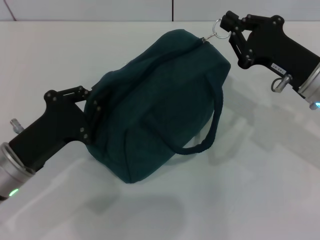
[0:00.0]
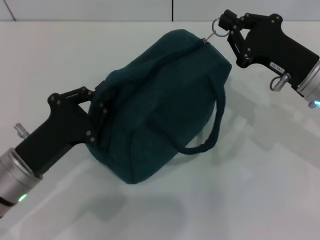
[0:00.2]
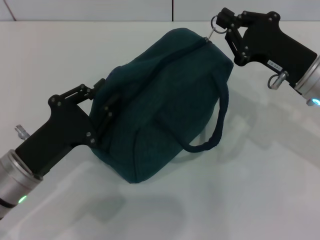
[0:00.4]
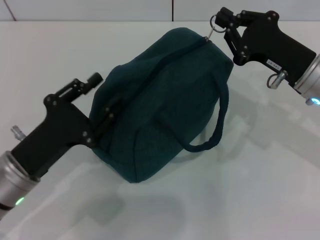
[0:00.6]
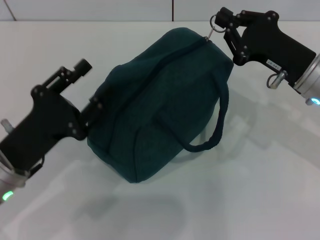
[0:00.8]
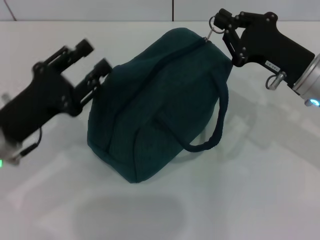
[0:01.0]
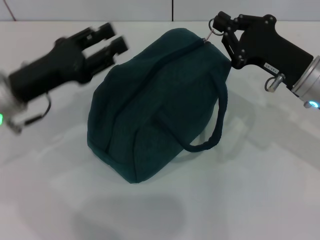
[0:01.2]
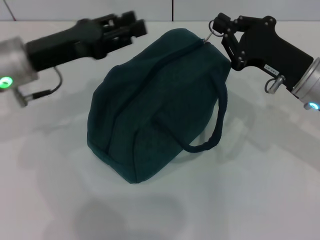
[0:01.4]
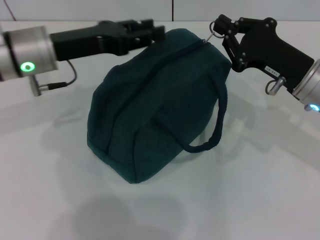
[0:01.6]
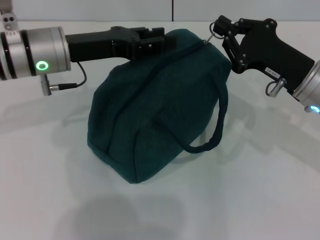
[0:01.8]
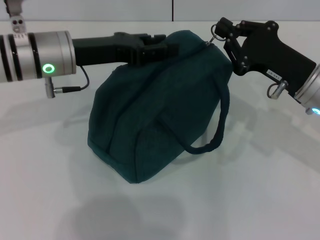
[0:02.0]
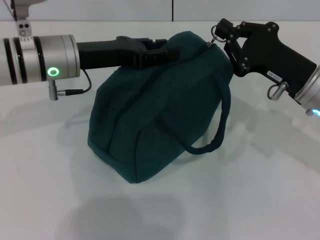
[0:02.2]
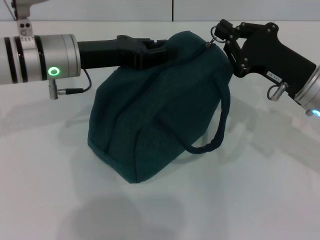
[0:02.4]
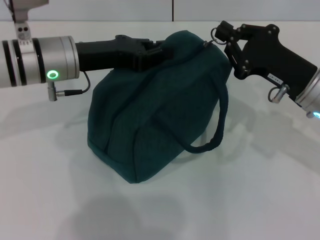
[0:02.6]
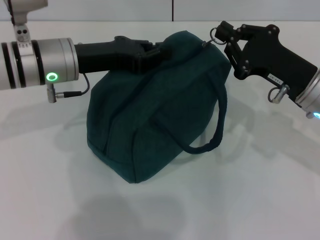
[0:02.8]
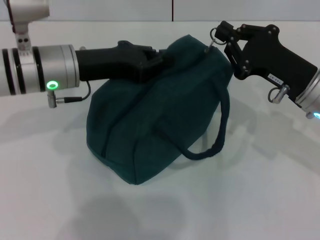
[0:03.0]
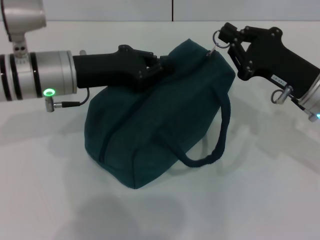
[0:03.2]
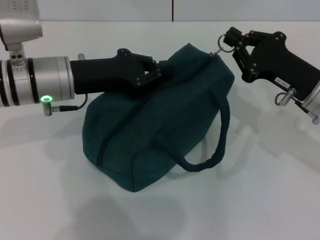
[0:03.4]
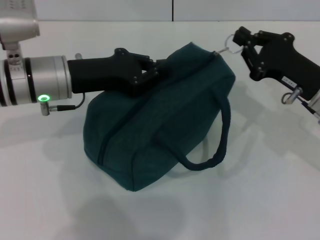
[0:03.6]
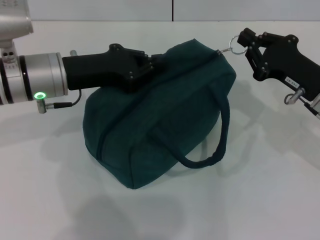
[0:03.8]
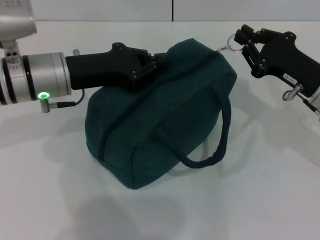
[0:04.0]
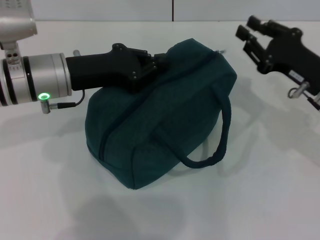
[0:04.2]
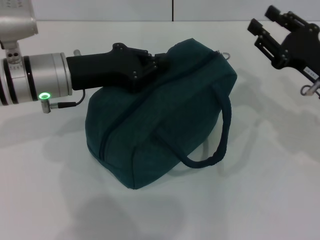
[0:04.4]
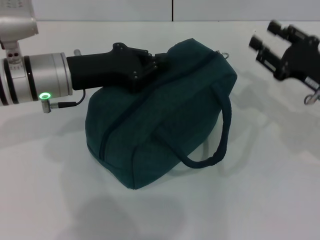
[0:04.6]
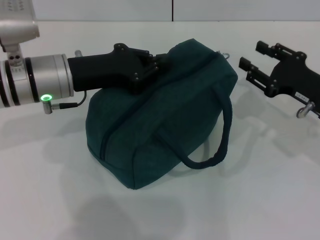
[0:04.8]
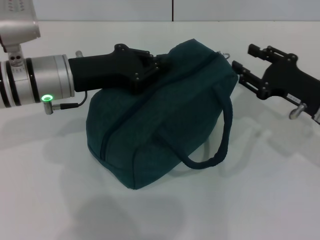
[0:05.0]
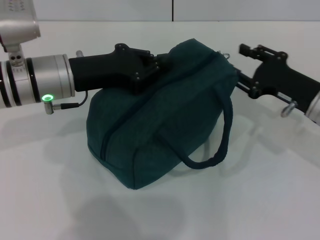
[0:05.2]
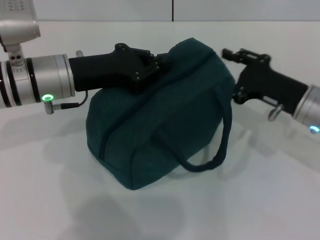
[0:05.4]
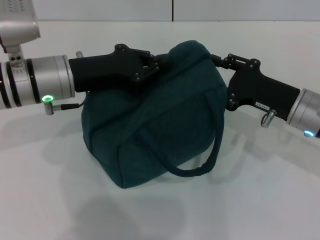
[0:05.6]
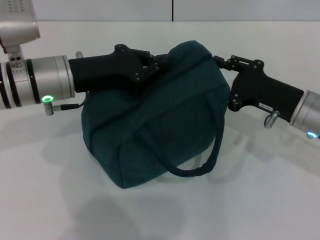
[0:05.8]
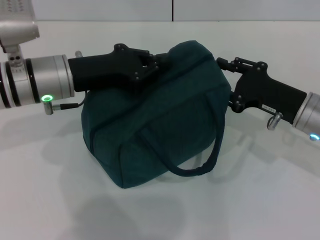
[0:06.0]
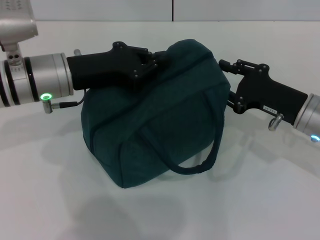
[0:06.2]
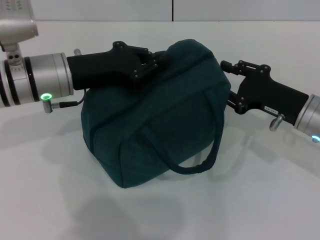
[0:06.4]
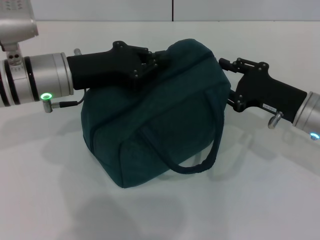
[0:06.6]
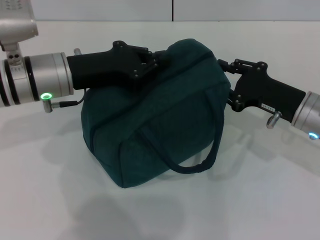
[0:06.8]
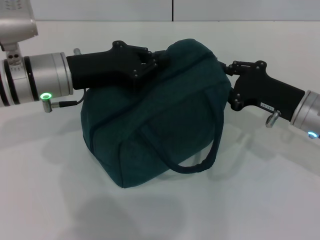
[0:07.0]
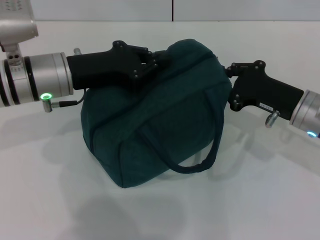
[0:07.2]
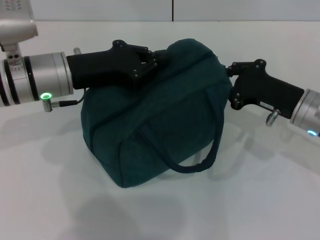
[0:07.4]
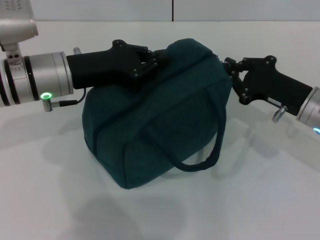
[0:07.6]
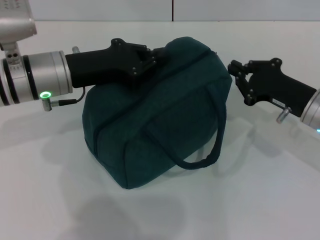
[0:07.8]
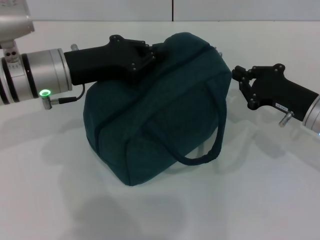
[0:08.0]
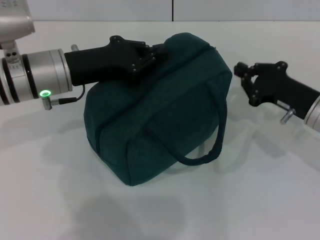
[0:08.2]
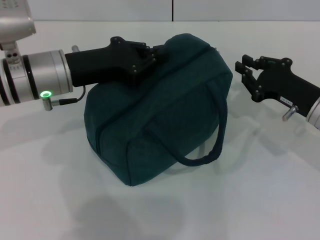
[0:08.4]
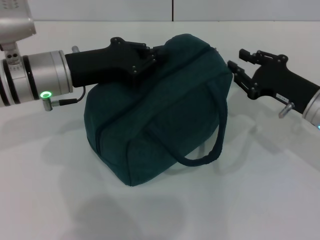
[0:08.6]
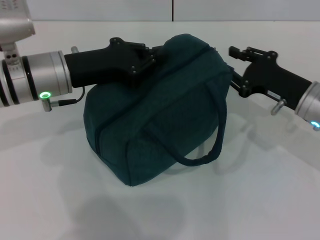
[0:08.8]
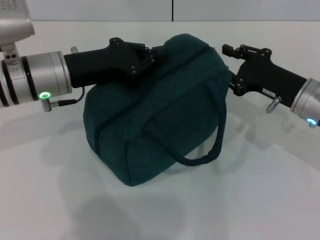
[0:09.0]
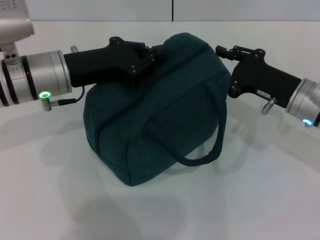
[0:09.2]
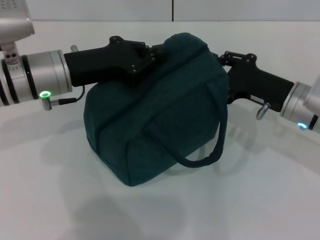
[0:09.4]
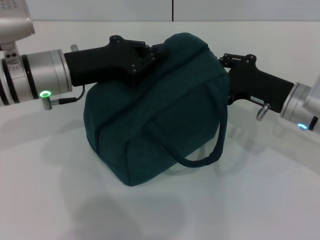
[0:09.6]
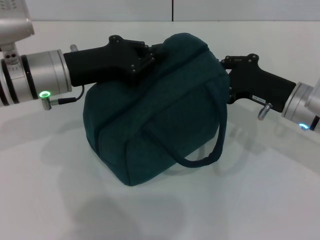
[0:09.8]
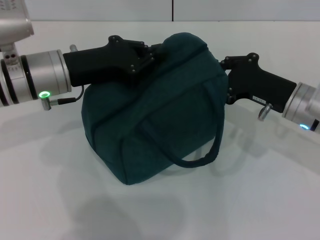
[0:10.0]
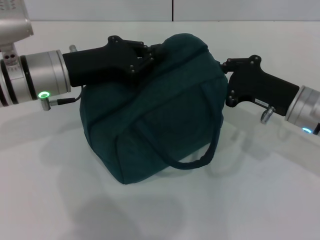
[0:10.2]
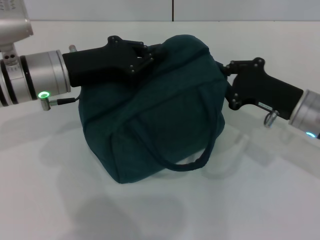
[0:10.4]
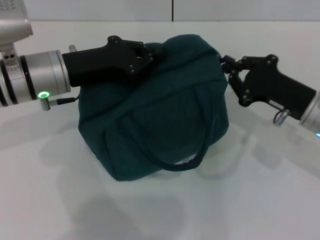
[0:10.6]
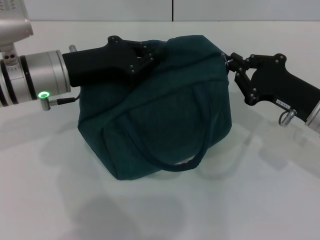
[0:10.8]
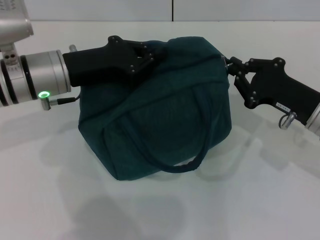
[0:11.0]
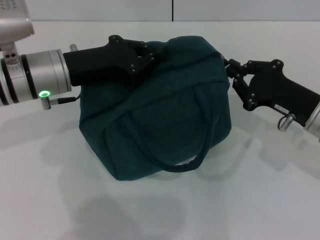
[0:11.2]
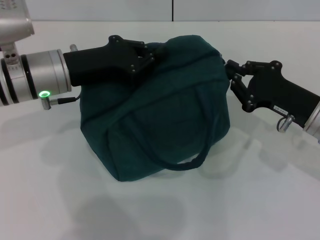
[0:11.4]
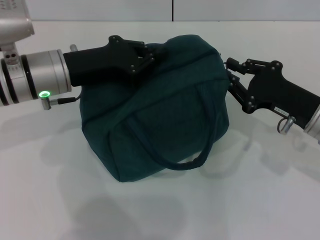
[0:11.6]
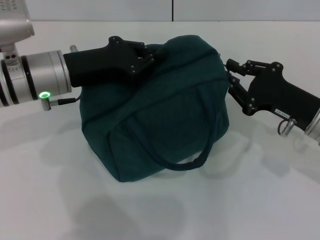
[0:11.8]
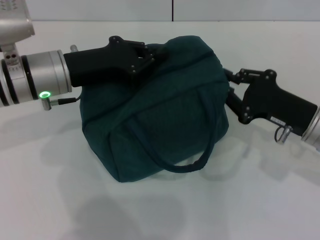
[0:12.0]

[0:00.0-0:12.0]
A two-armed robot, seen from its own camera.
0:00.0 to 0:01.6: The left gripper travels forward and upward by some 15 cm, and opens.
0:01.6 to 0:03.0: The left gripper closes.
0:03.0 to 0:04.4: The right gripper opens.
0:04.4 to 0:06.0: There are only small adjustments of the grippers.
0:06.0 to 0:07.6: The right gripper closes up.
0:07.6 to 0:09.0: The right gripper opens.
0:09.0 to 0:10.4: The right gripper closes its fingers.
0:10.4 to 0:12.0: The grippers stay close to where they were, moving slightly.

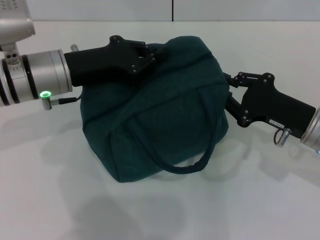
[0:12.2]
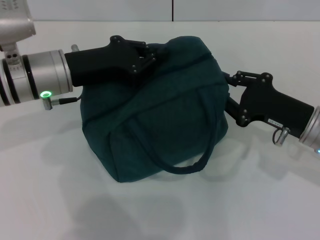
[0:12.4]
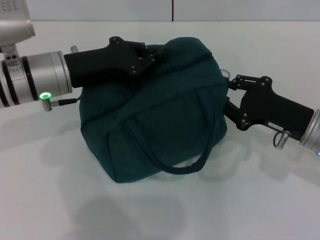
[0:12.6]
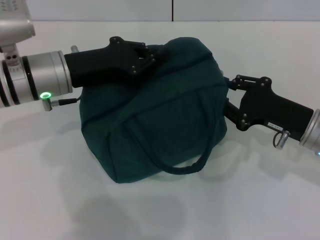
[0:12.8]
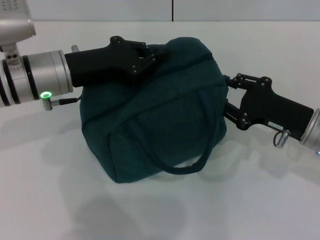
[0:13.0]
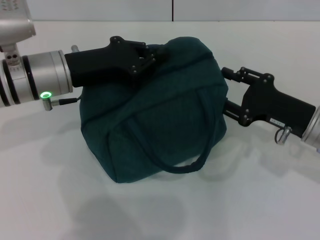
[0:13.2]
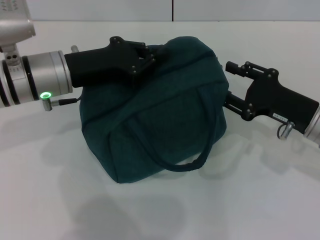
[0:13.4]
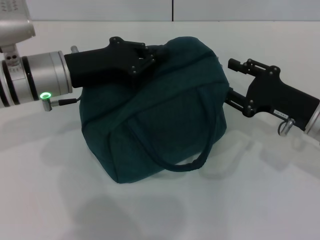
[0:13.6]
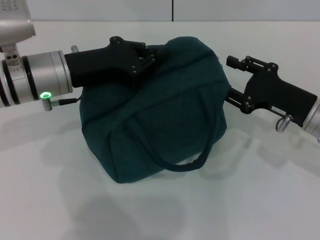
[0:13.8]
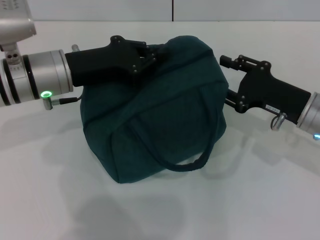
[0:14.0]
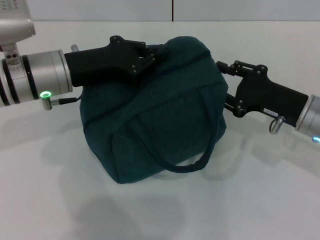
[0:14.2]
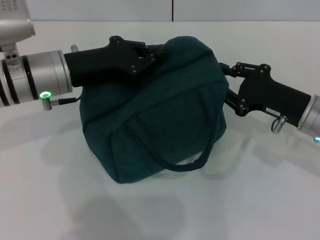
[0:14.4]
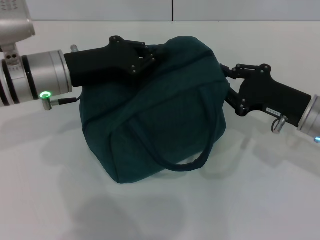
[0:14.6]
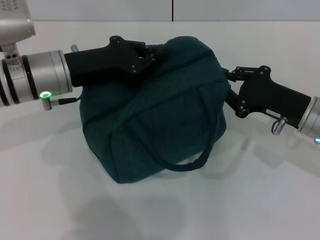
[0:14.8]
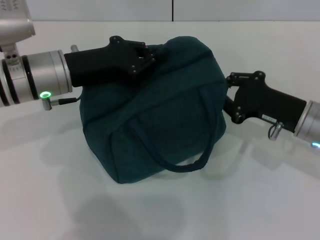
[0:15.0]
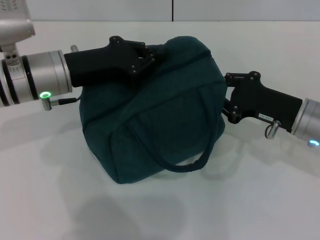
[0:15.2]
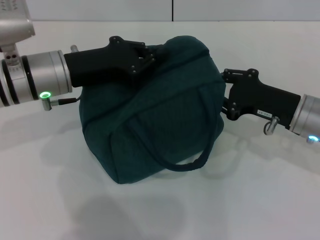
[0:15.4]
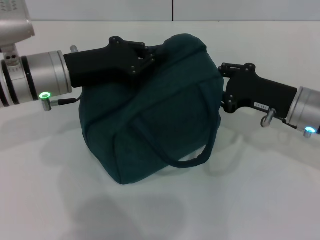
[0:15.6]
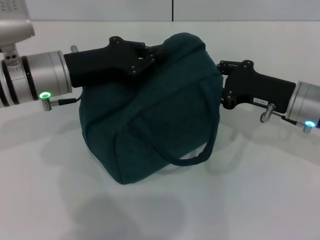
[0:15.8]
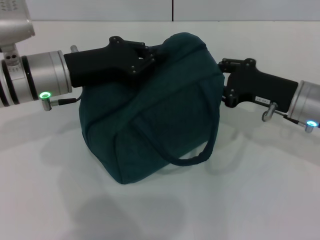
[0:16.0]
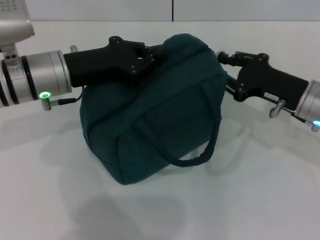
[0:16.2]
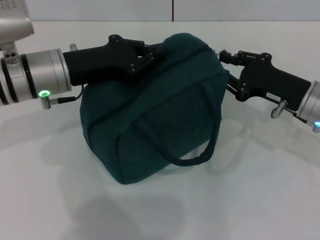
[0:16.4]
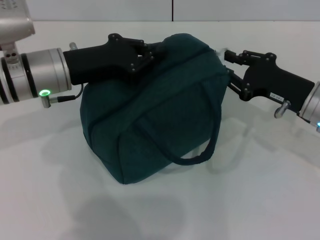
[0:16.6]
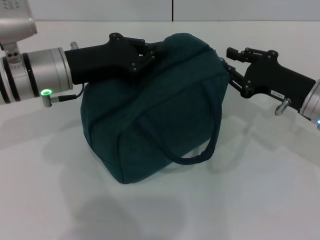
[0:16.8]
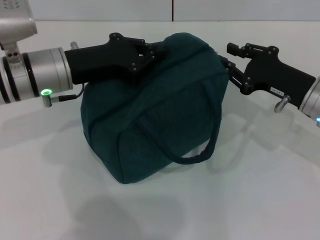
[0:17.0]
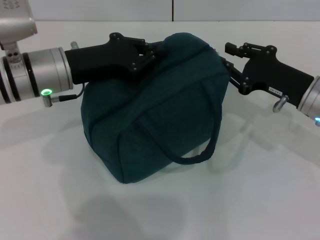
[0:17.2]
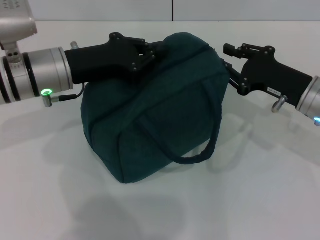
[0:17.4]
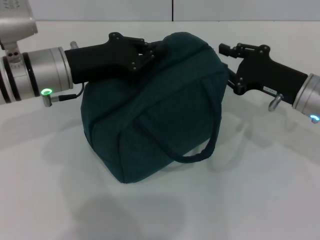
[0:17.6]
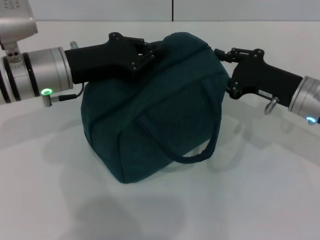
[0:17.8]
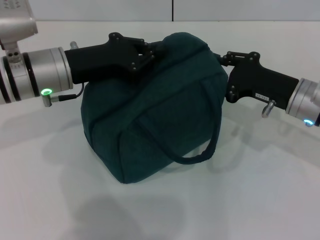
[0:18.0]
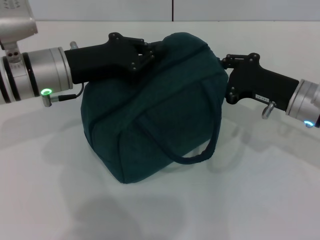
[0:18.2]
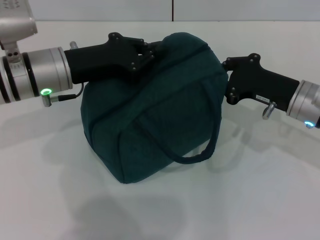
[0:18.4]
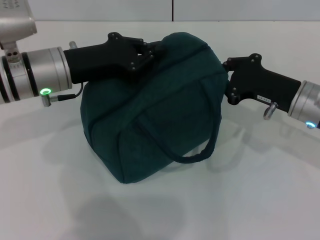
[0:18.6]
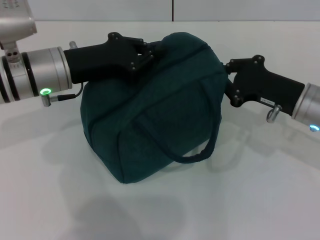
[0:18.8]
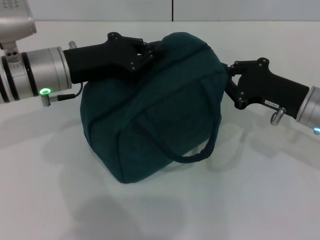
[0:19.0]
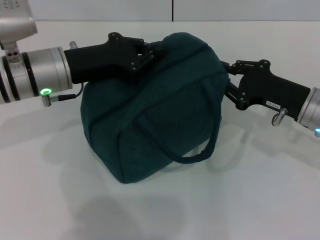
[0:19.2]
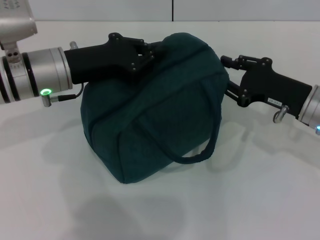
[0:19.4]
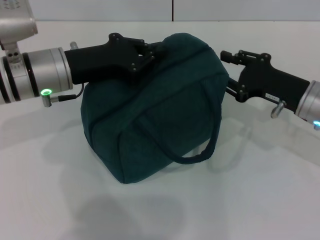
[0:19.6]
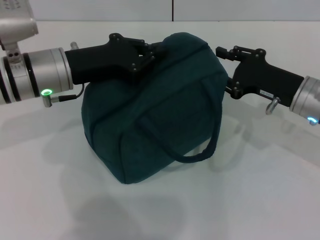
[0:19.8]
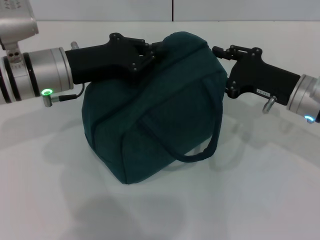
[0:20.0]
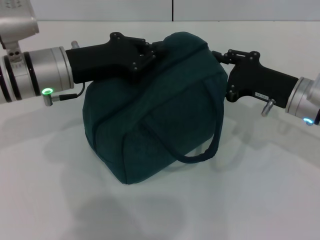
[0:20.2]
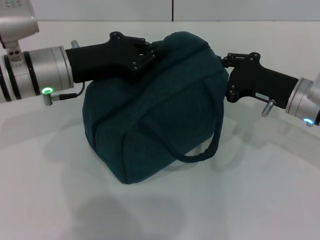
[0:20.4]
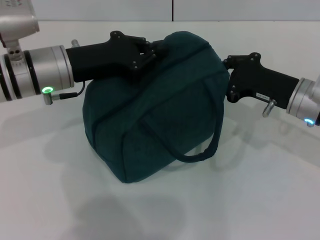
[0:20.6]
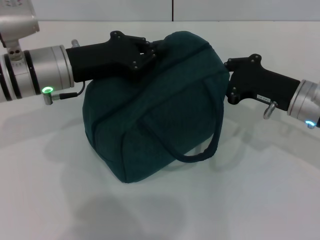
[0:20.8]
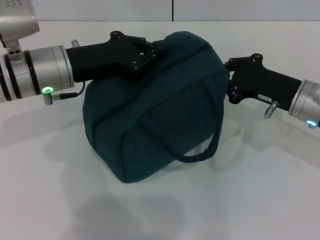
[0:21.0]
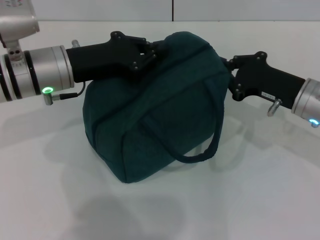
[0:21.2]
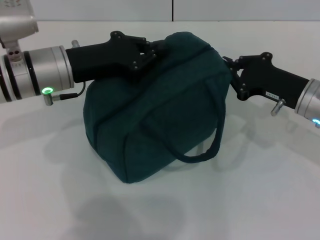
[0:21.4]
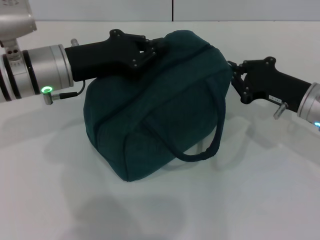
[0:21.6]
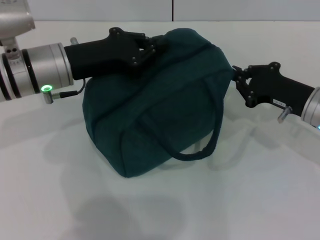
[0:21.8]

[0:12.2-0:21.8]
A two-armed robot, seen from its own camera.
0:12.2 to 0:13.8: The right gripper opens up.
0:13.8 to 0:18.6: There are only small adjustments of the grippers.
0:18.6 to 0:20.2: The right gripper opens its fingers.
0:20.2 to 0:21.8: The right gripper closes its fingers.

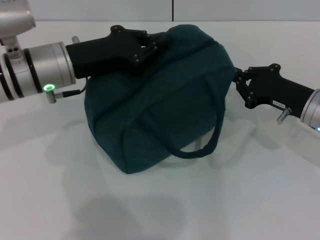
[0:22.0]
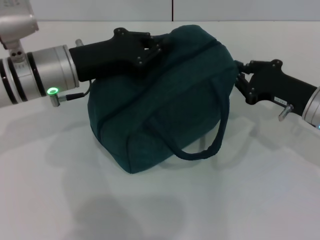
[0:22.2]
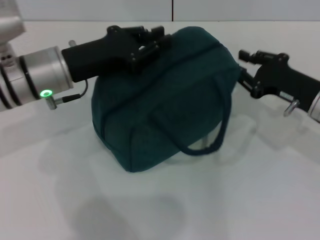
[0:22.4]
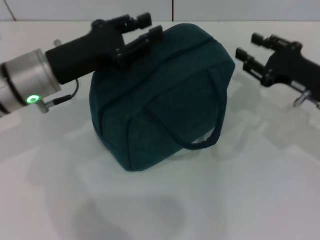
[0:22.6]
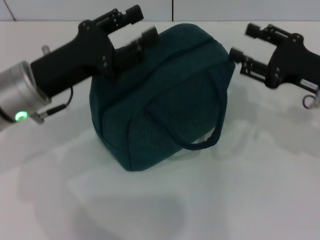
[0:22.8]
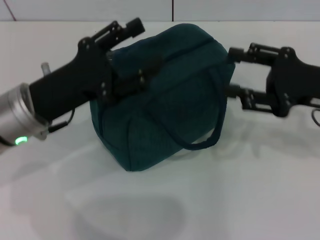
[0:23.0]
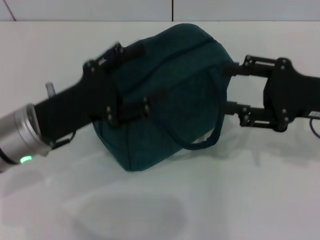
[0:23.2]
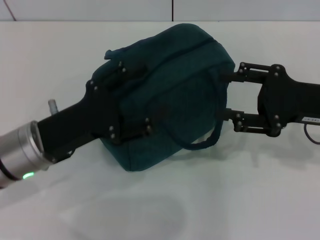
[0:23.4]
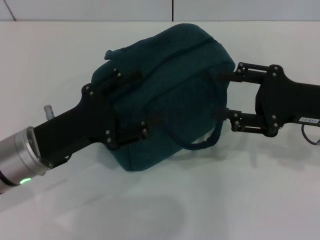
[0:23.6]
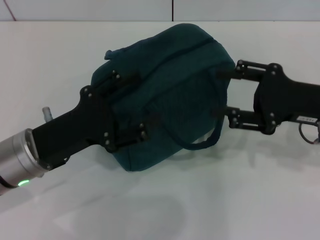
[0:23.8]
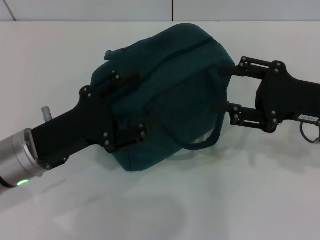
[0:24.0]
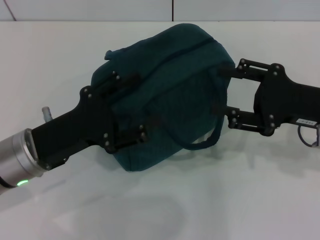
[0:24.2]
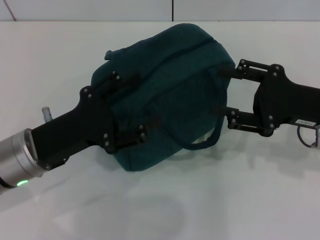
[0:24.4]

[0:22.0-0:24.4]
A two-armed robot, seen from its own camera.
Step, 0:22.4 to 0:22.6: Hold the lunch bag with your left hand.
0:22.0 to 0:23.2: The left gripper shifts roughly 10 cm backward, and opens up. Meanwhile the right gripper goes some 10 cm upward, and opens.
0:23.2 to 0:24.4: There are only small adjustments of the grippers.
